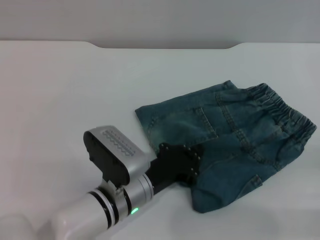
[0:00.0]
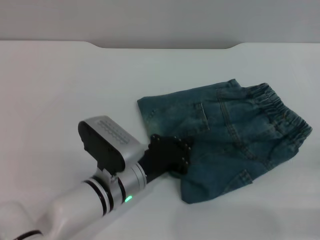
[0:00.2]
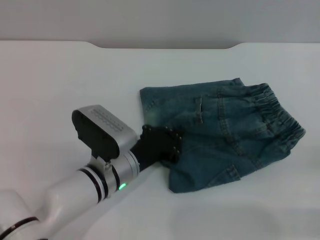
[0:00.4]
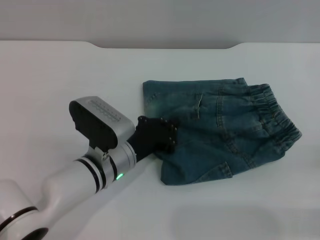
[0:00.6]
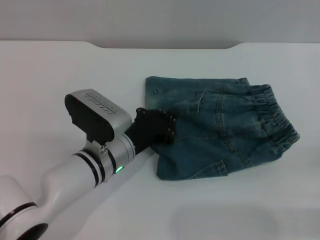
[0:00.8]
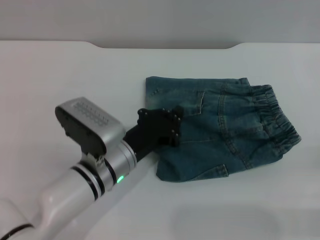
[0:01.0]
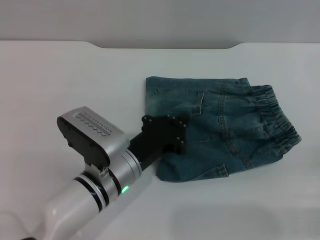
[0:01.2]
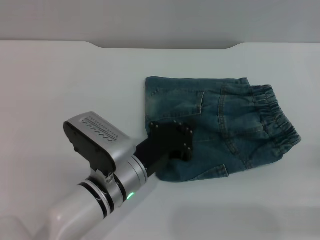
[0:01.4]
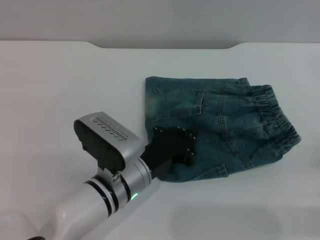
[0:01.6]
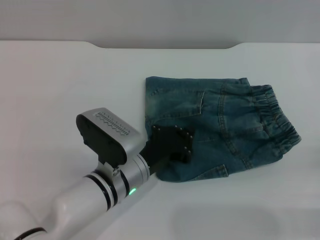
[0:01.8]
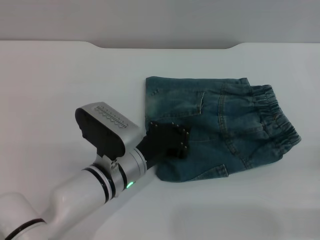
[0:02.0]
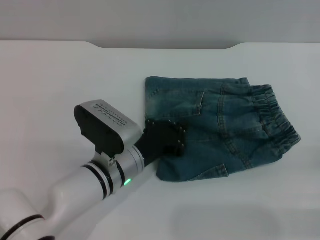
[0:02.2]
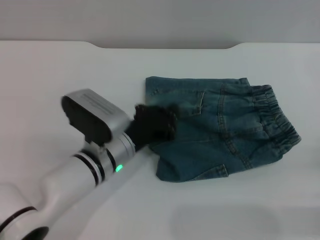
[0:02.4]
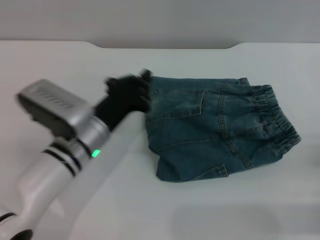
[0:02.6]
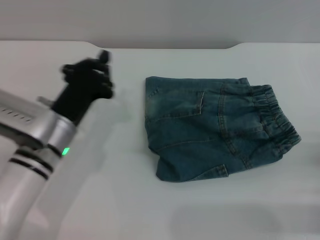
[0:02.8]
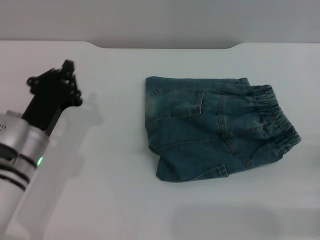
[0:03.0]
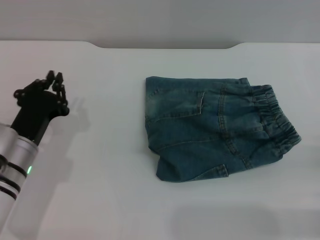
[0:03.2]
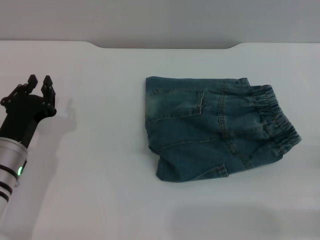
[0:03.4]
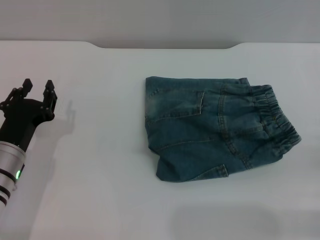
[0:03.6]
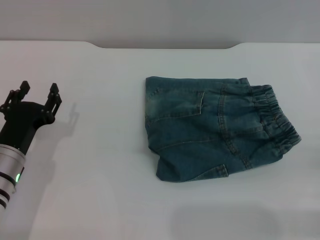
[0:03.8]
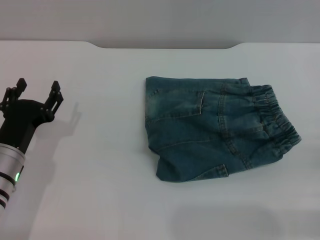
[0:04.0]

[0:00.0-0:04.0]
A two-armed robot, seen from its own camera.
Step, 0:00.0 to 0:02.4: Place the folded trousers onto the center area with the left grippers.
0:00.0 to 0:01.4: There are only small adjustments of the grippers.
0:01.4 to 0:02.6: The left gripper is displaced to the left by approximately 5 cm.
0:02.6 to 0:04.0: The left gripper moves to the left, approximately 10 cm, and opens. Meanwhile the right gripper opens.
